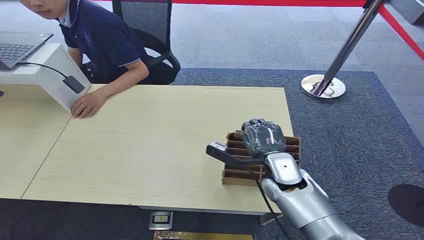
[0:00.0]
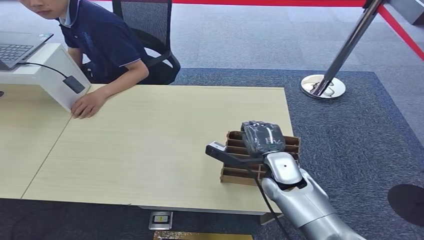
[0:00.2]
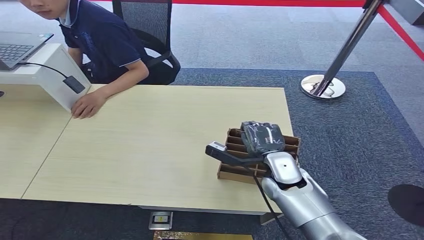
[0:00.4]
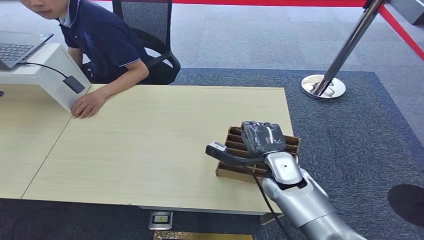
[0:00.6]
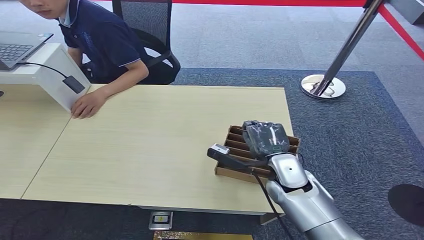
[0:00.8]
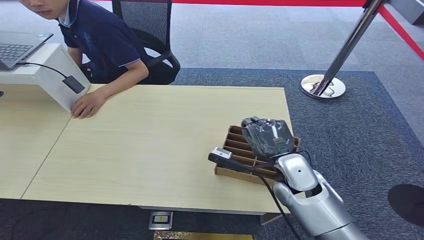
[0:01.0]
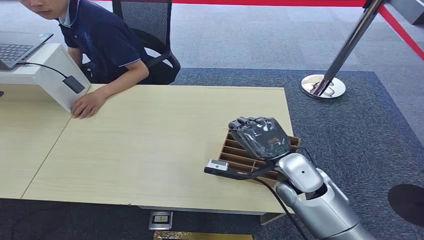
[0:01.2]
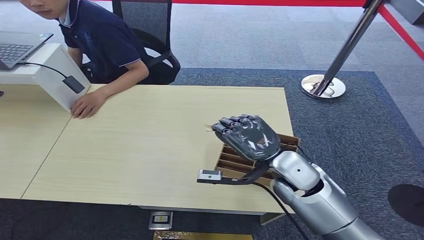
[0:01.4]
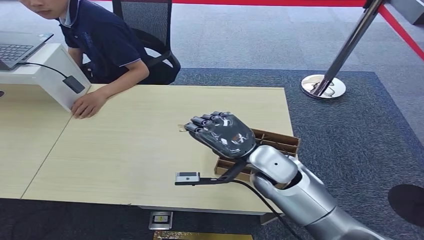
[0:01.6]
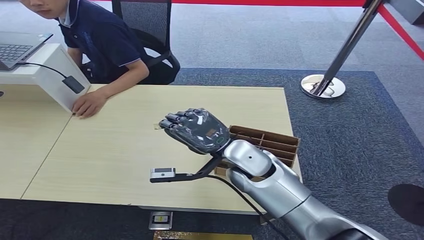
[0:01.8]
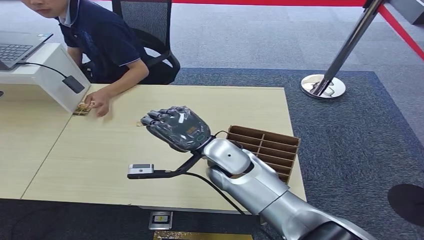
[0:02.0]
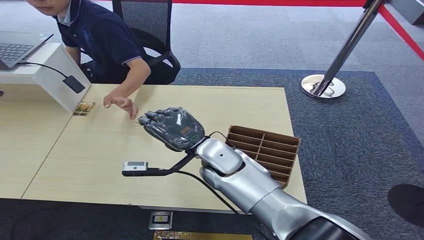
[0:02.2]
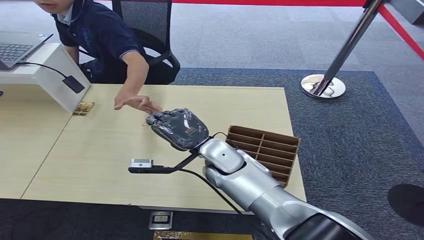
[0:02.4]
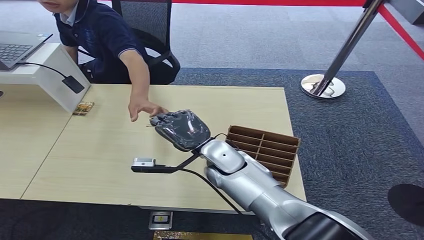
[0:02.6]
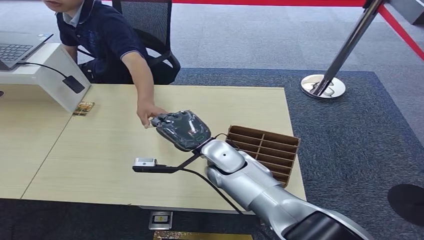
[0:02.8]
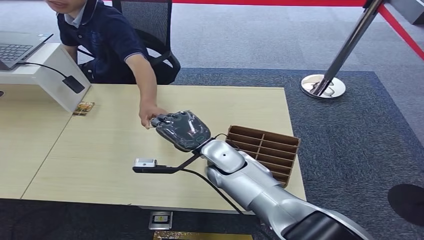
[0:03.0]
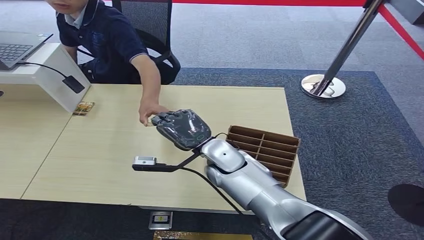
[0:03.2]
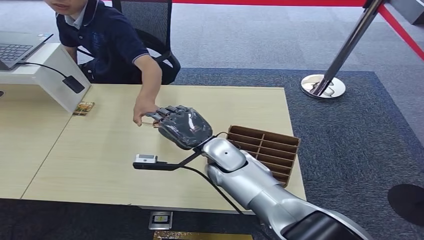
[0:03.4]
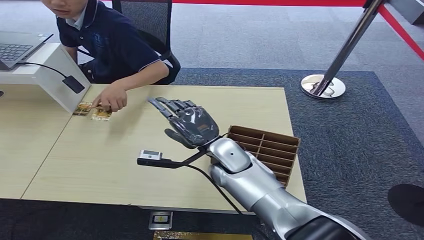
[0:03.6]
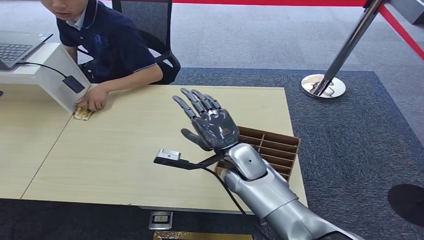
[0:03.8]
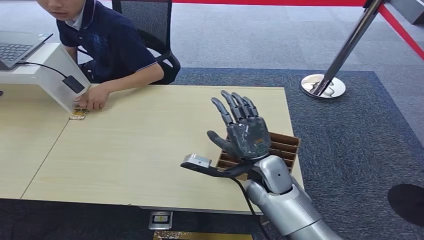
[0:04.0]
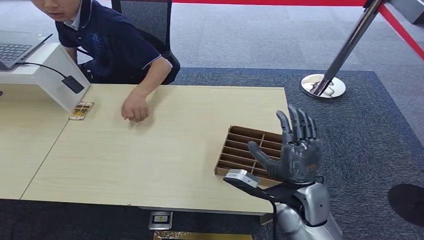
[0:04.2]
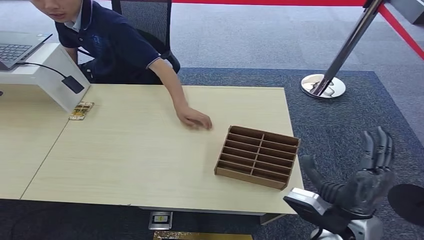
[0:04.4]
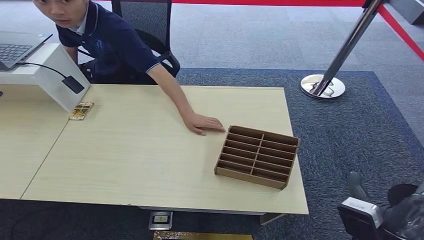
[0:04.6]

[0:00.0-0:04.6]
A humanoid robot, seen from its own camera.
Step, 0:00.0 to 0:02.0: Pick up the room card from the card holder.
Step, 0:02.4 to 0:04.6: Hand the room card to the target.
0:01.6 to 0:03.0: The right hand shifts approximately 10 cm to the left.
0:03.0 to 0:04.6: The right hand travels to the right and backward by approximately 30 cm.
